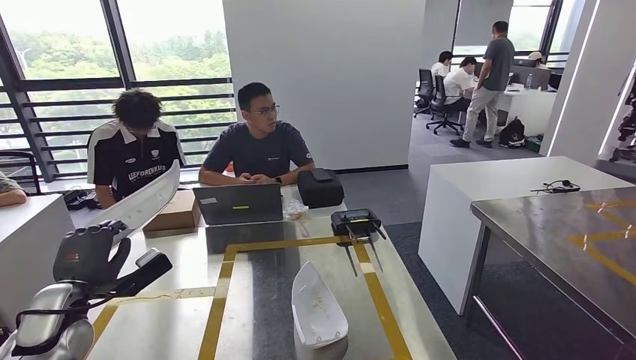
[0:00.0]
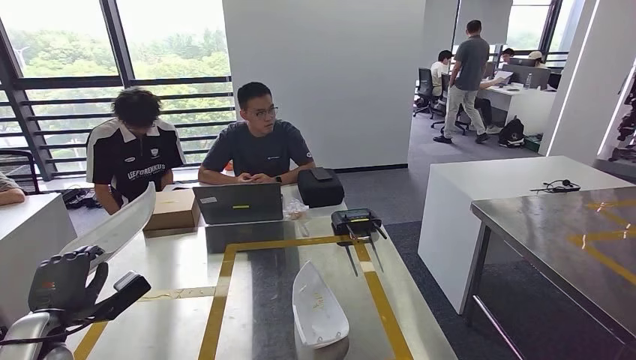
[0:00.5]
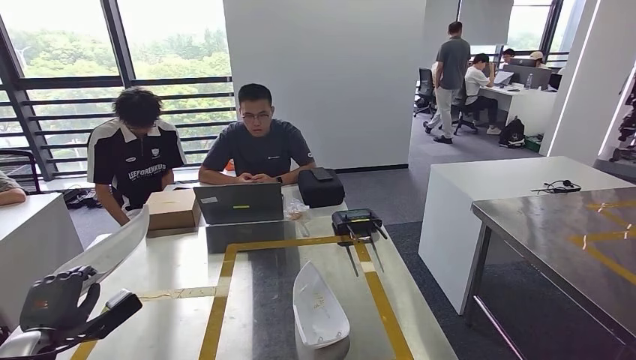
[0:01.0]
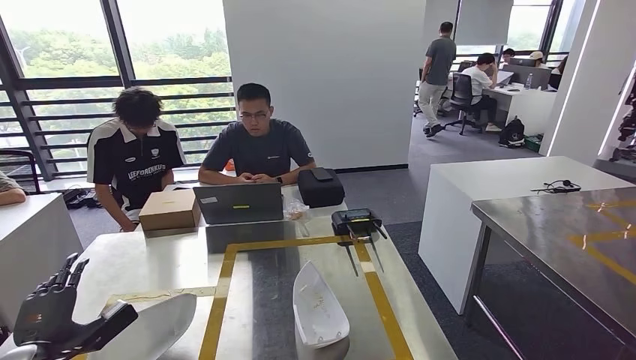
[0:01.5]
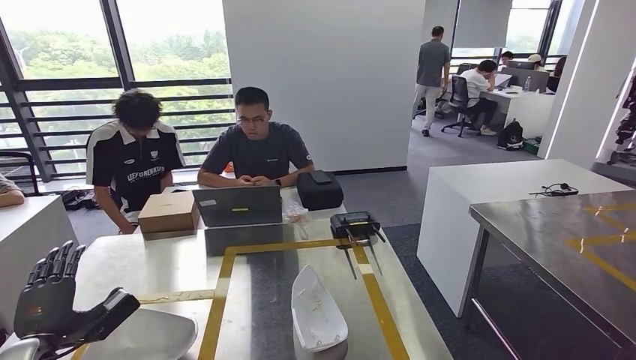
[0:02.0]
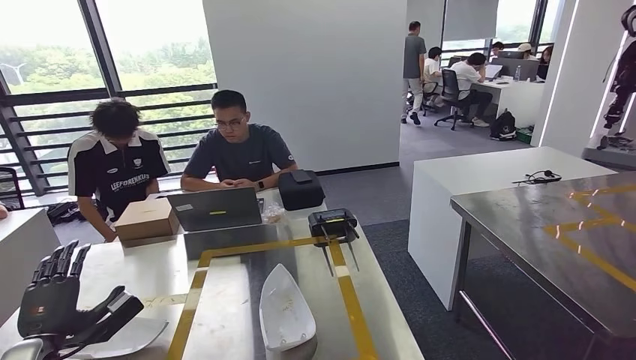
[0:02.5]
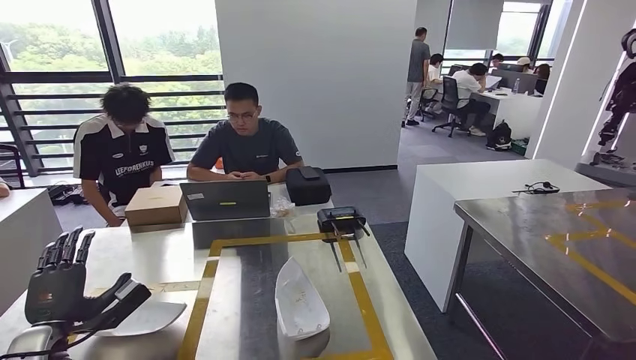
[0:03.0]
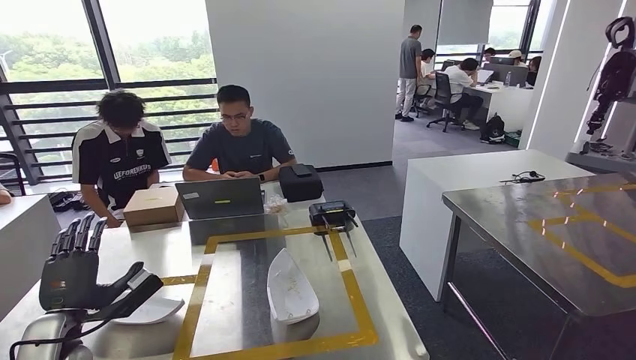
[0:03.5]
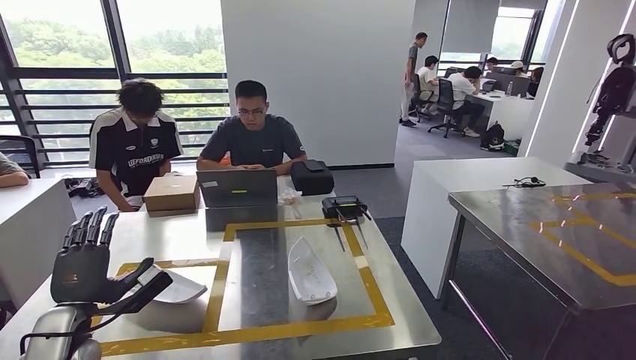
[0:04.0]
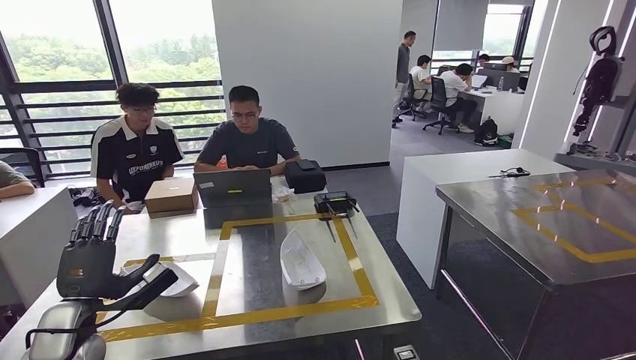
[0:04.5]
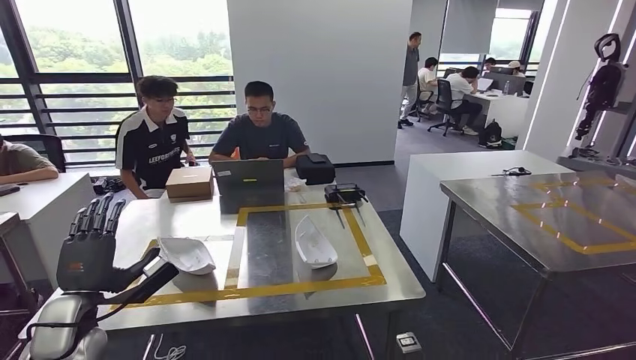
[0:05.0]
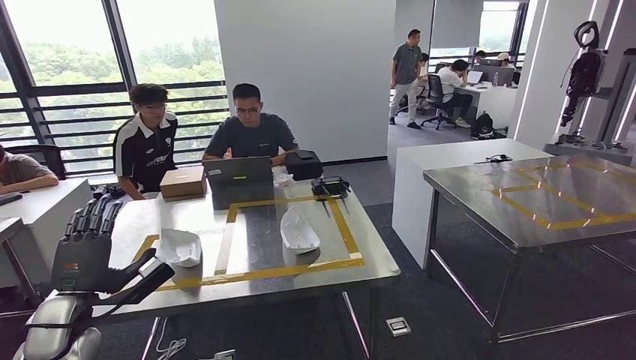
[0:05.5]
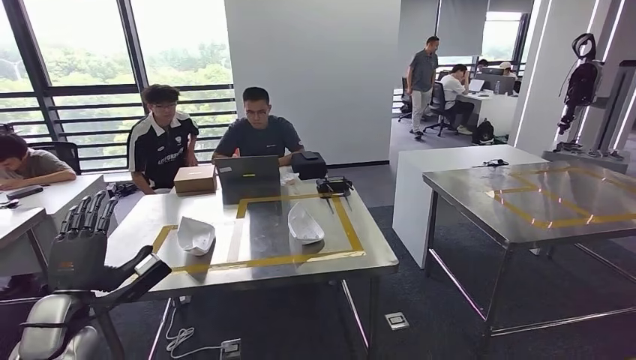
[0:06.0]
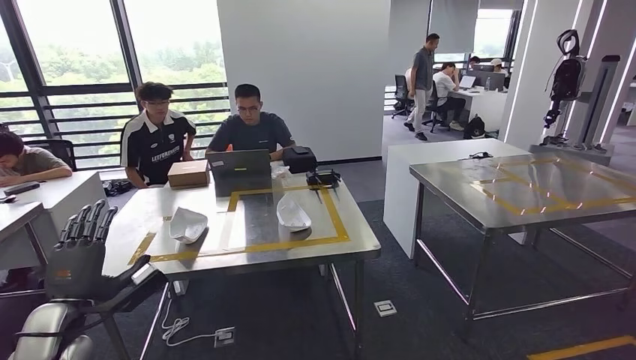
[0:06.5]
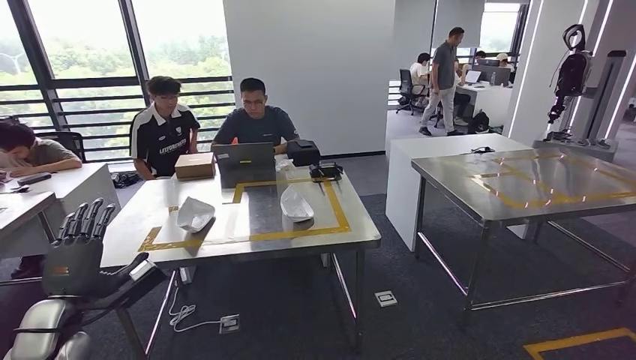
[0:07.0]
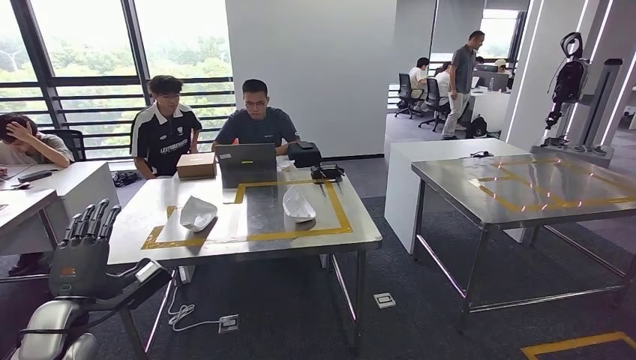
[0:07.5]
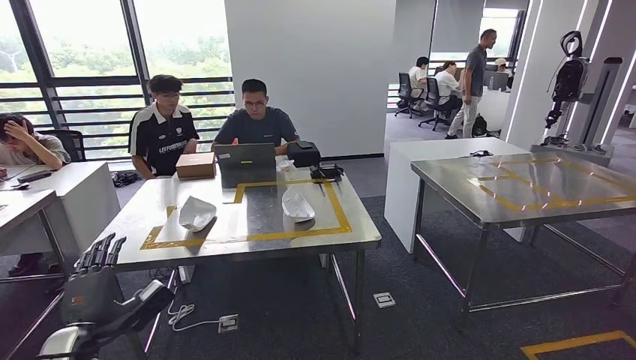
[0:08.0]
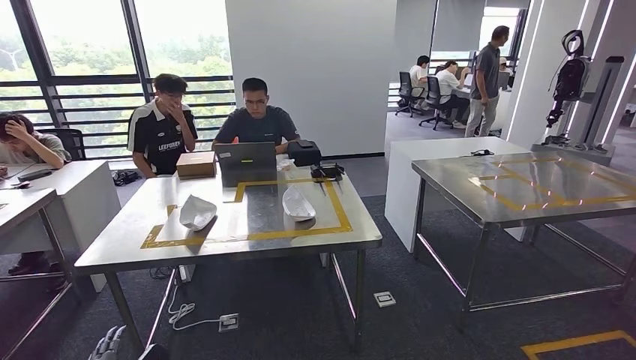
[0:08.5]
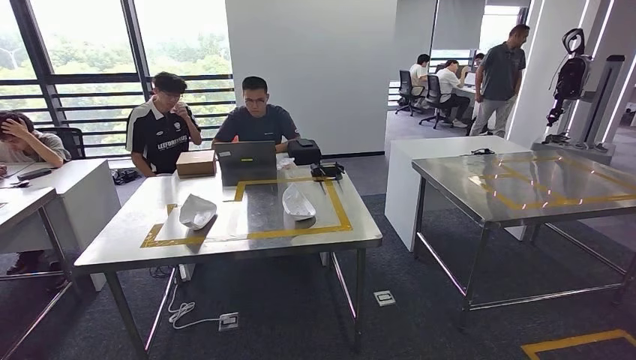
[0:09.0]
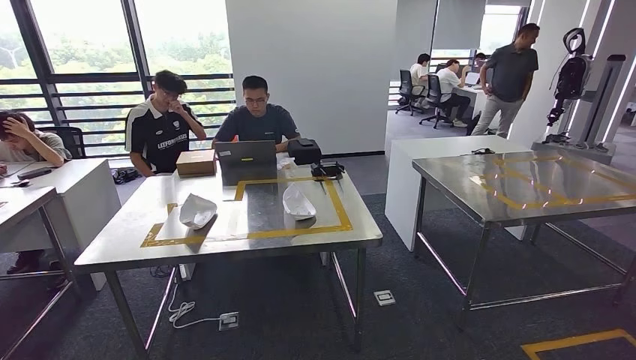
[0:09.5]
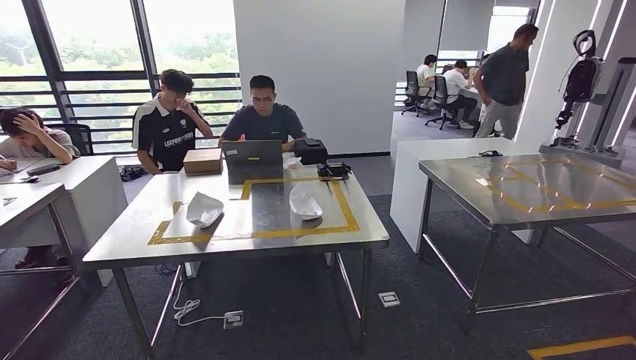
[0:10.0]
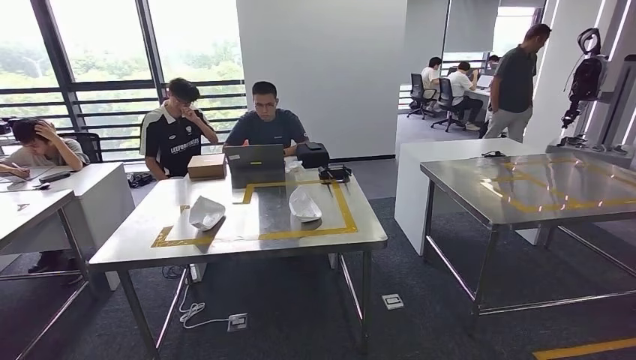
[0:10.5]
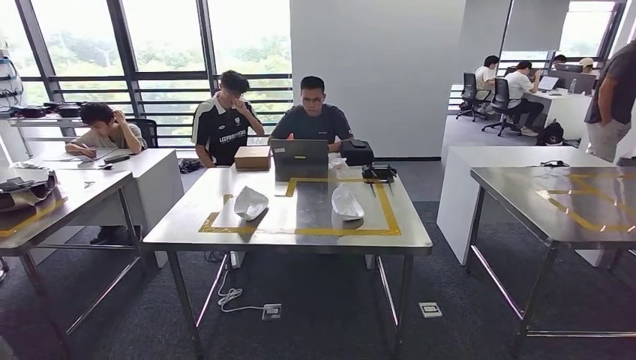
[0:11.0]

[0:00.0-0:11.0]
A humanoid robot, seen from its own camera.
Step, 0:01.5 to 0:03.0: Insert the small component into the corresponding slot on the workbench.
Step, 0:06.5 to 0:11.0: Return to the initial position at the workbench.
0:07.5 to 0:09.0: The left hand moves downward and backward, some 35 cm.
